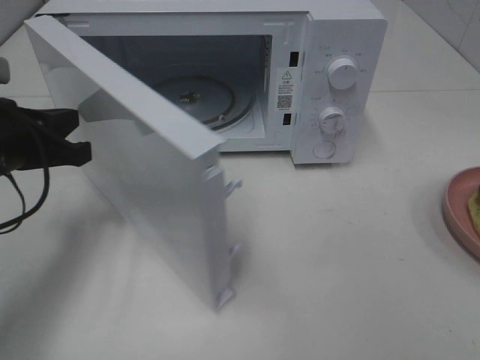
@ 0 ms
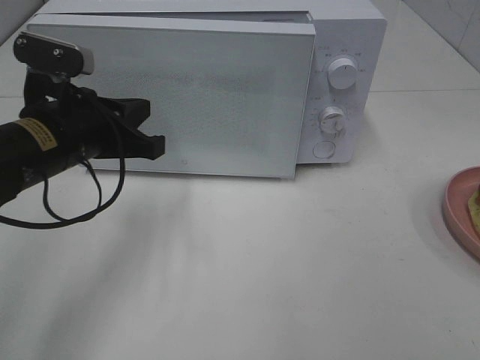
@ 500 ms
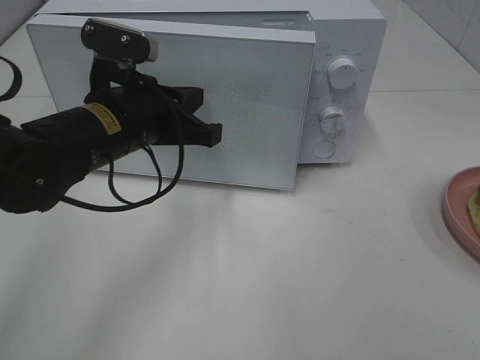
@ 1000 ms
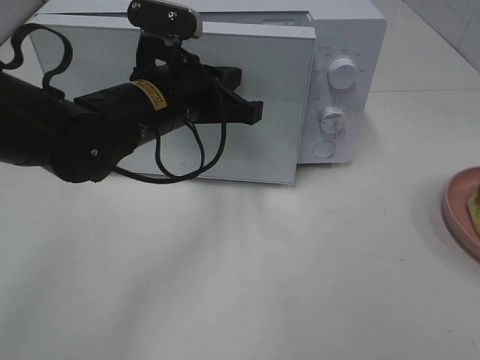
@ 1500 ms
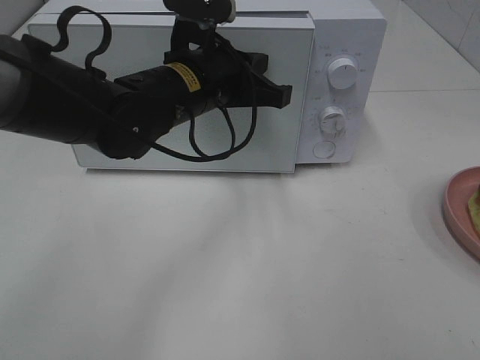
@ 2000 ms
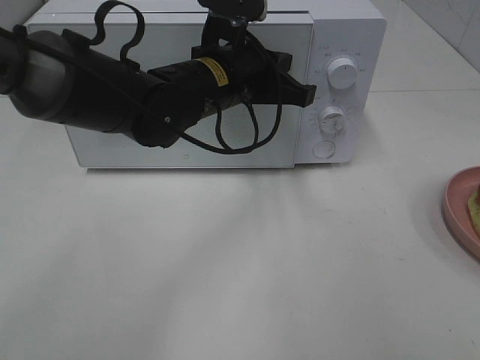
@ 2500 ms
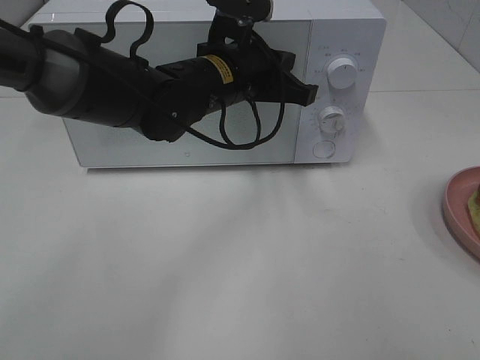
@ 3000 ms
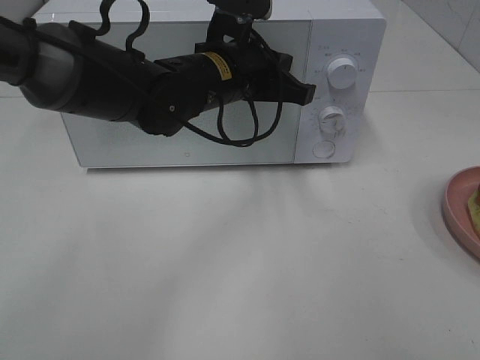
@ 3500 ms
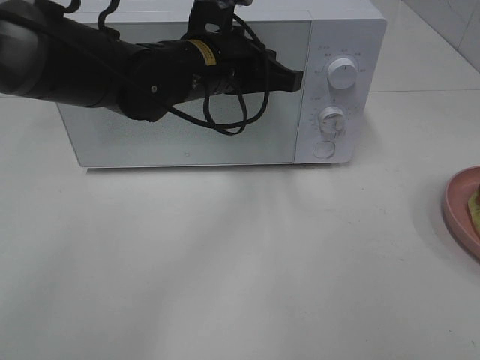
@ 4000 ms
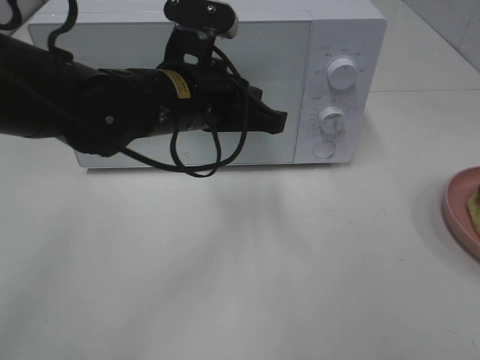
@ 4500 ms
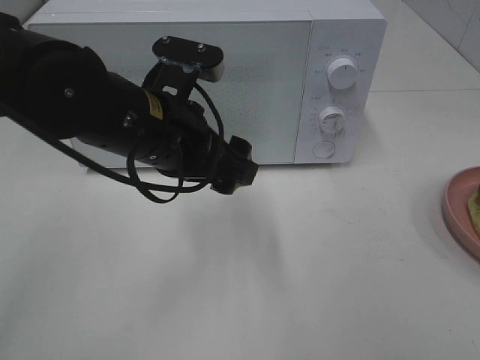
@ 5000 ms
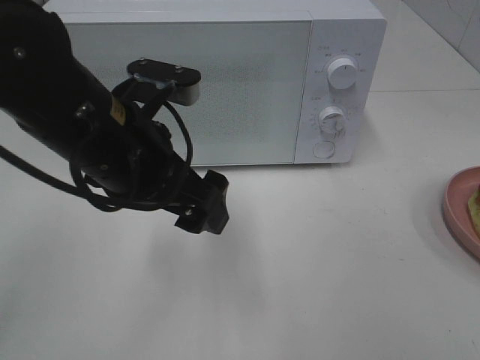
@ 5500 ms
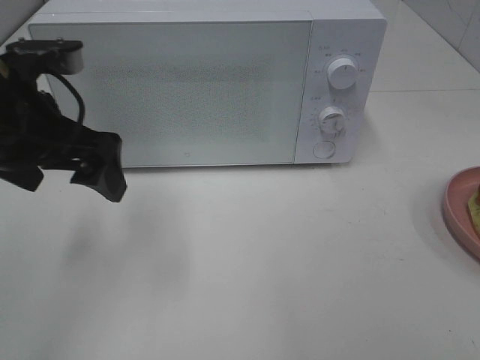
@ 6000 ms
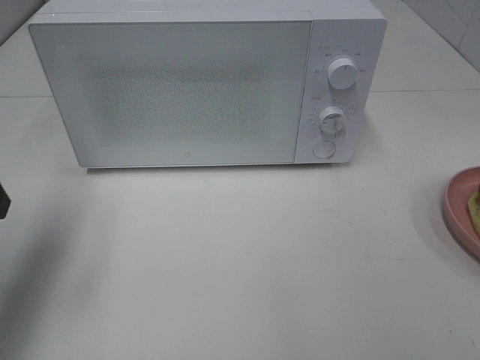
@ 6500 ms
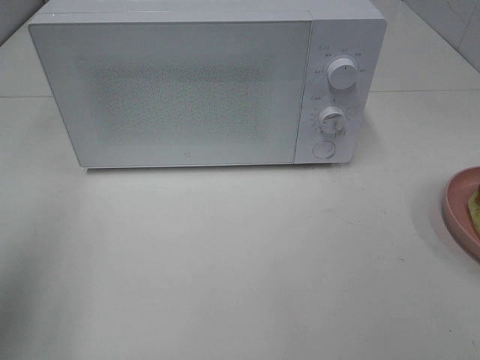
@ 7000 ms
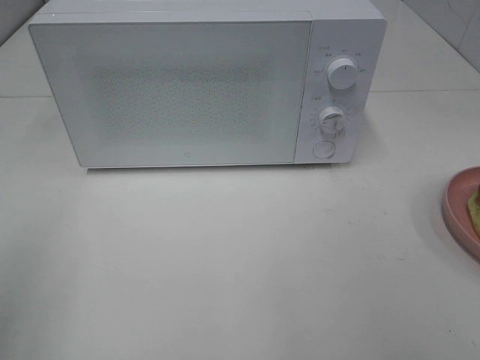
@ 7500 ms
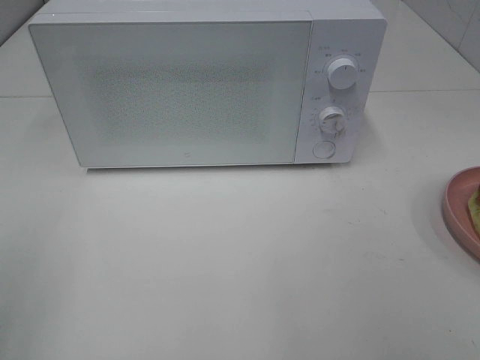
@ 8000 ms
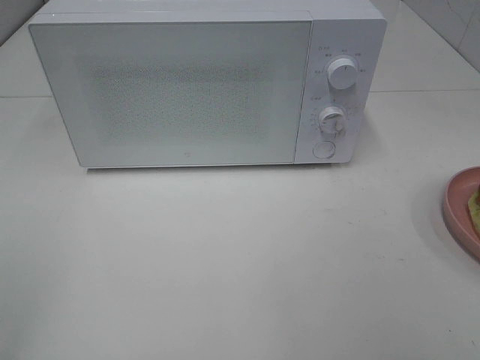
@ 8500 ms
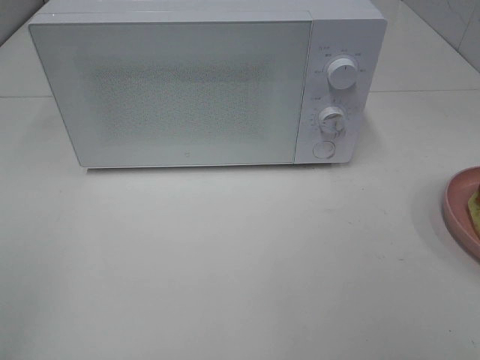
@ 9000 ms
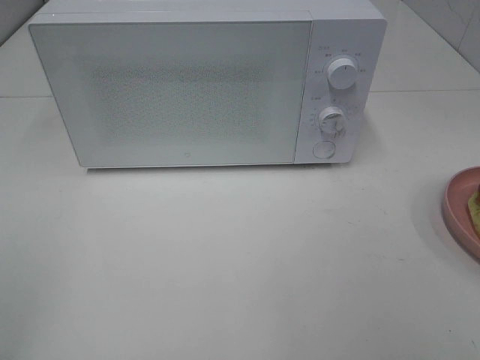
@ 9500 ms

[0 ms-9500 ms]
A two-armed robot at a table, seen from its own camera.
Task of the whole recording: Heat Sandwich.
Step, 0 ms to 3500 ms: Left hand: close the microwave door.
0 ms to 2000 ms: The left gripper moves to the right, some 20 cm.
2000 ms to 4000 ms: There are only small adjustments of the grippers.
4000 ms to 5500 ms: The left gripper travels backward and to the left by approximately 15 cm, and opens.
5500 ms to 7500 ms: The left gripper shifts approximately 30 cm to the left and backward.

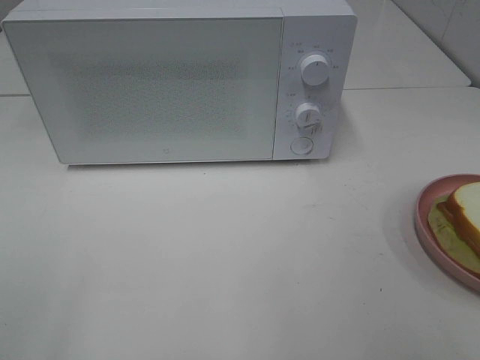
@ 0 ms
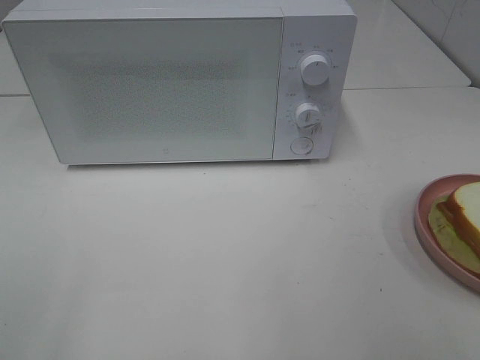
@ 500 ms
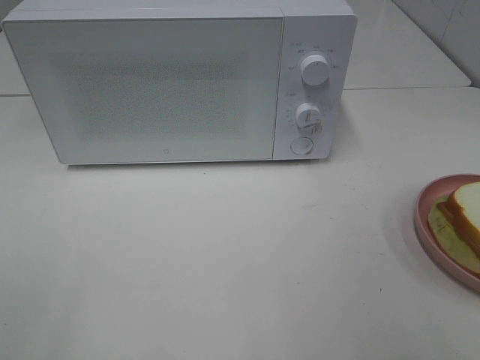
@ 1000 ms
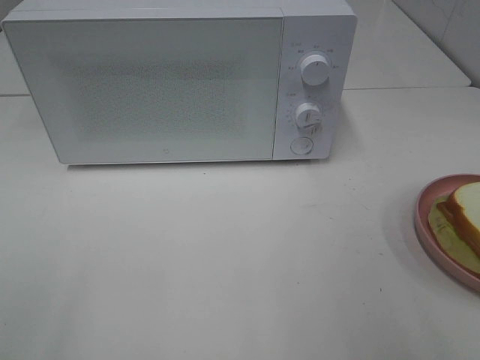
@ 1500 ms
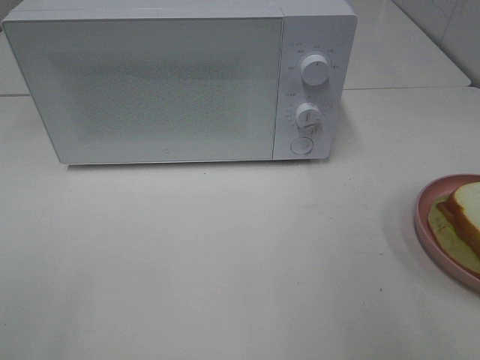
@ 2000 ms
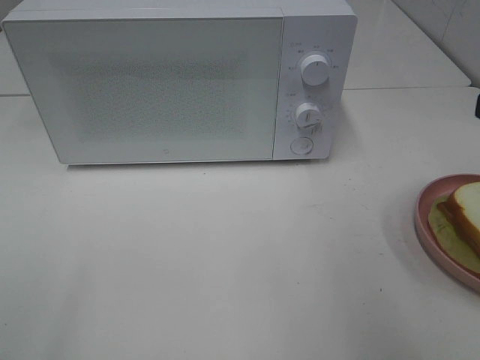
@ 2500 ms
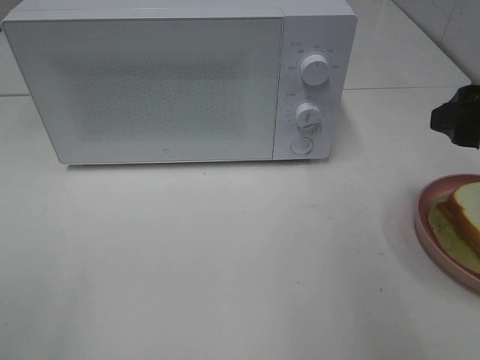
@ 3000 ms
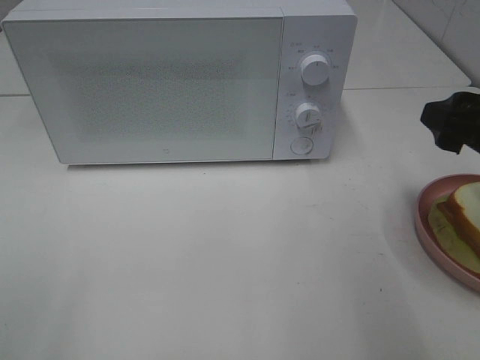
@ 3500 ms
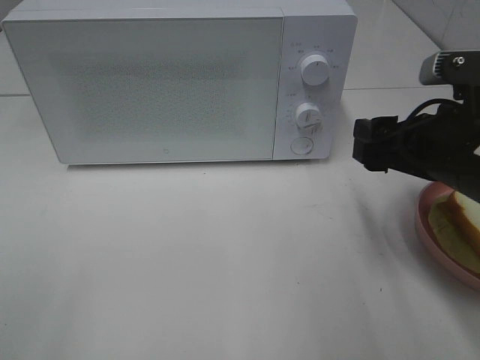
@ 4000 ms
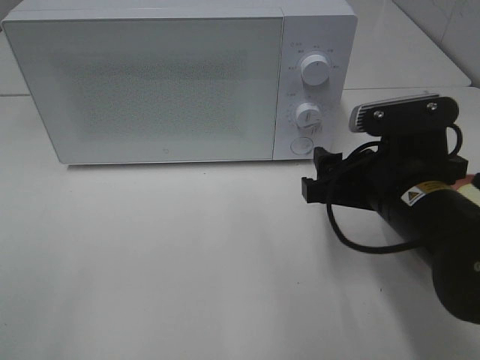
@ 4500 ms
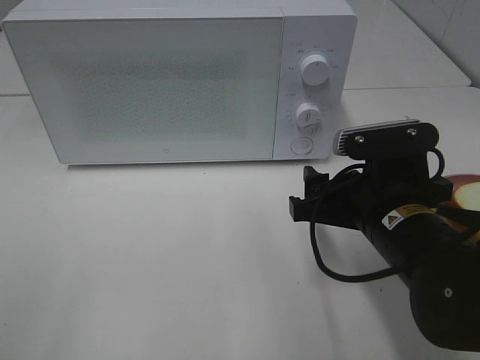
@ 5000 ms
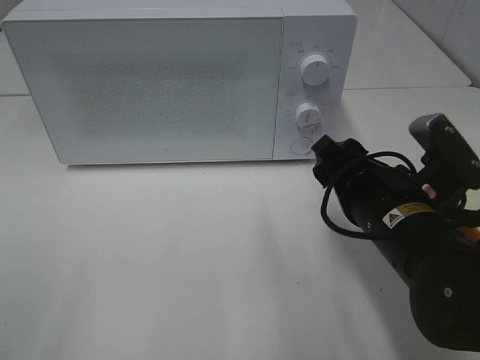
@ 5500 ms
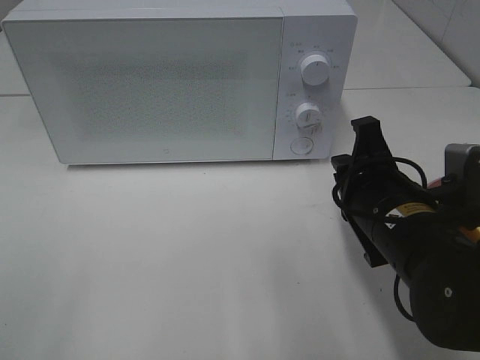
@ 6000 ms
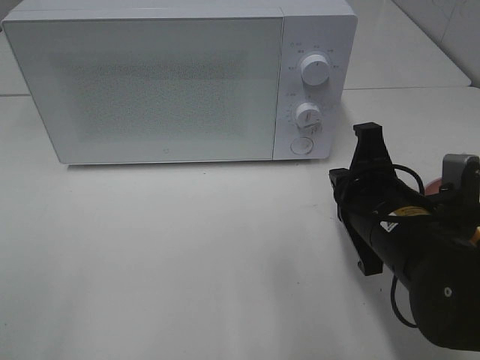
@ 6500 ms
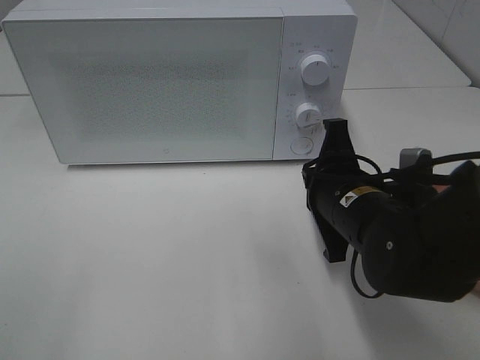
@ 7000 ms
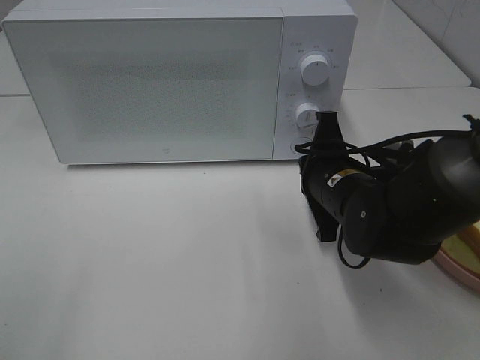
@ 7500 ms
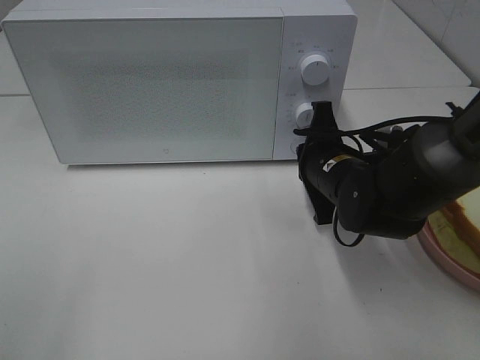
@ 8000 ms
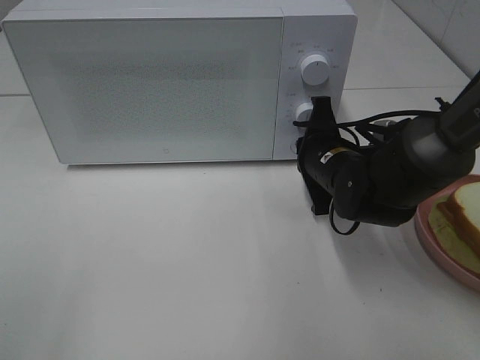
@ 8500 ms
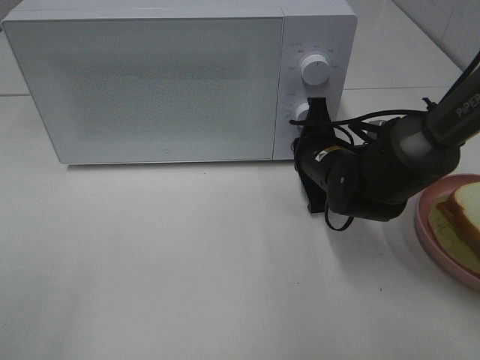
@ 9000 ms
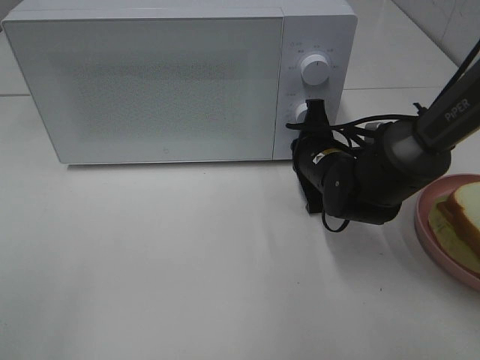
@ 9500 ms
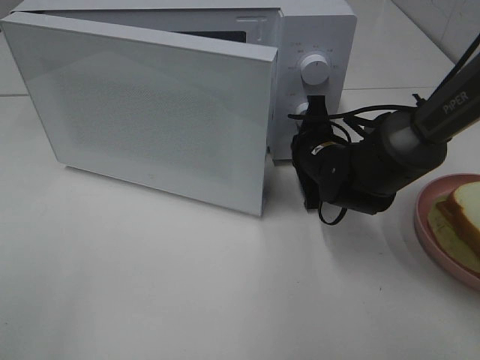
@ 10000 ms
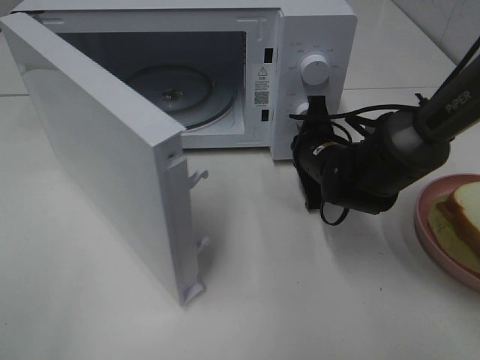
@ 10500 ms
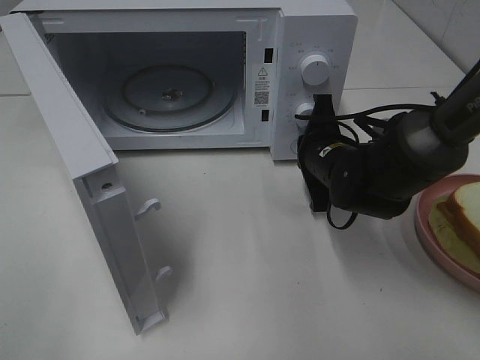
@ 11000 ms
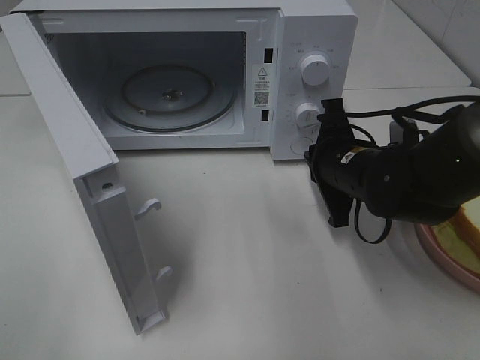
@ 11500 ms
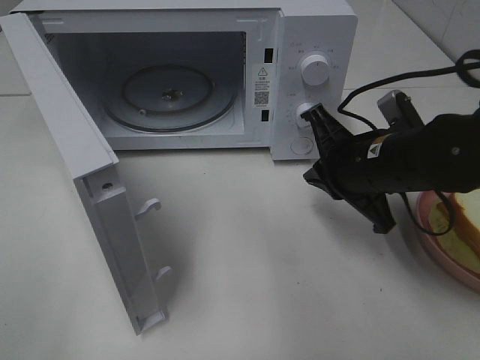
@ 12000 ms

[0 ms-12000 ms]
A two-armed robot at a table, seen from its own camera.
Task of the whole recording: Heat Sandwich.
Step, 0 ms to 11000 ms: Right hand: press the switch.
2000 ms to 4000 ms: The right gripper goes approximately 15 cm downward, forward and to the left.
4000 ms to 6000 ms: The right gripper travels to the left and downward by roughly 10 cm, and closes up.
6000 ms to 8000 ms: The right gripper heads forward, covering roughly 10 cm.
8000 ms to 10000 ms: There are only small adjustments of the grippers.
10000 ms to 12000 ms: The right gripper is displaced backward and upward by some 10 cm.

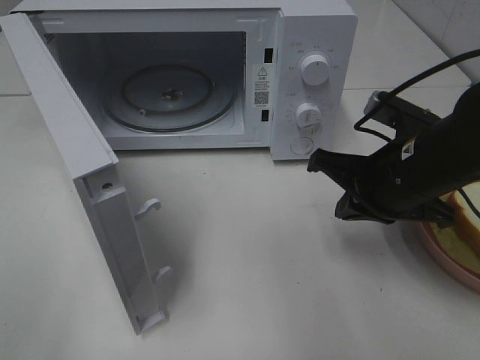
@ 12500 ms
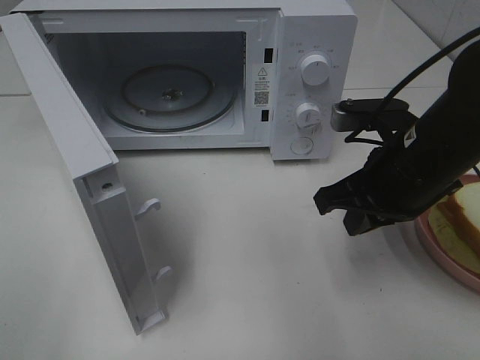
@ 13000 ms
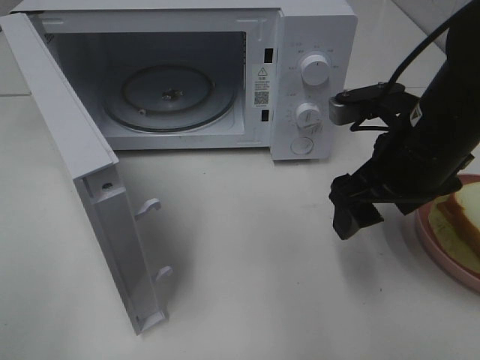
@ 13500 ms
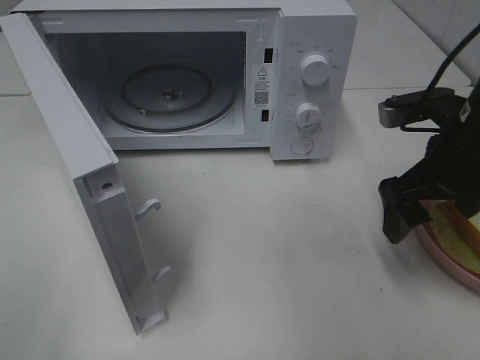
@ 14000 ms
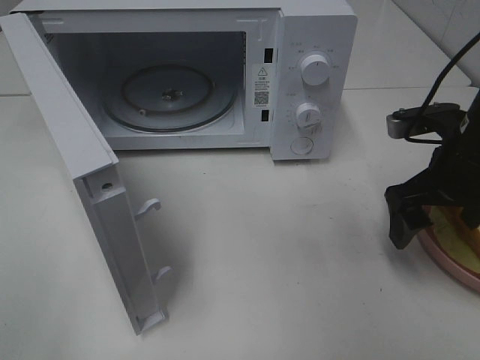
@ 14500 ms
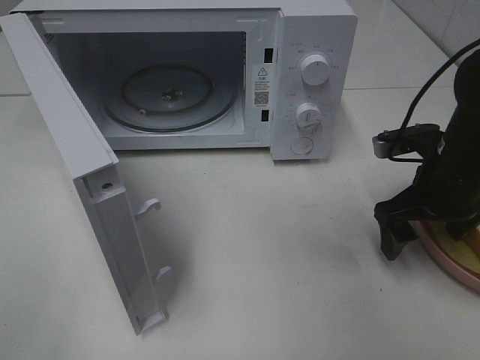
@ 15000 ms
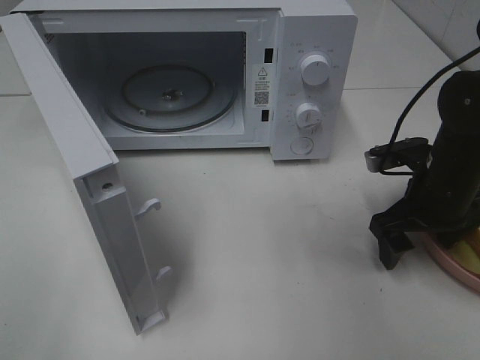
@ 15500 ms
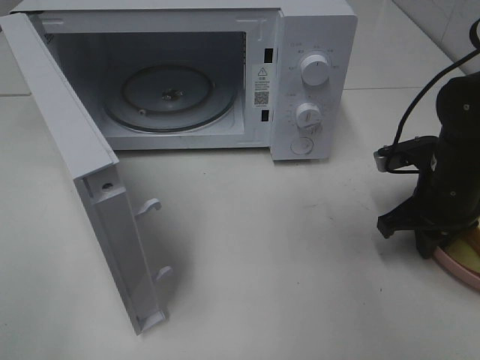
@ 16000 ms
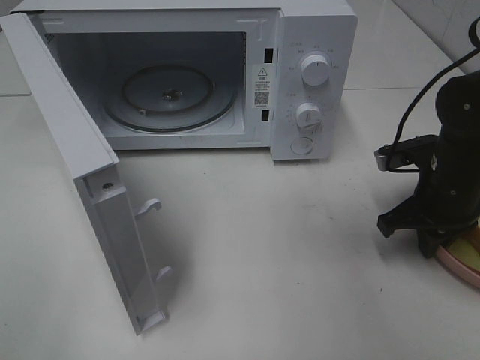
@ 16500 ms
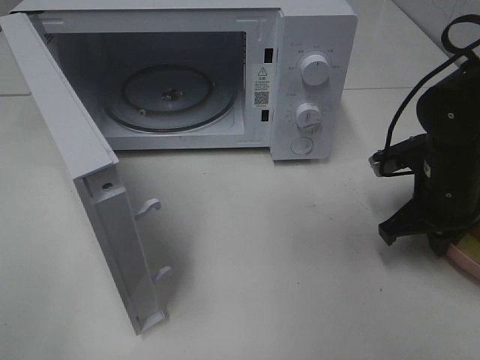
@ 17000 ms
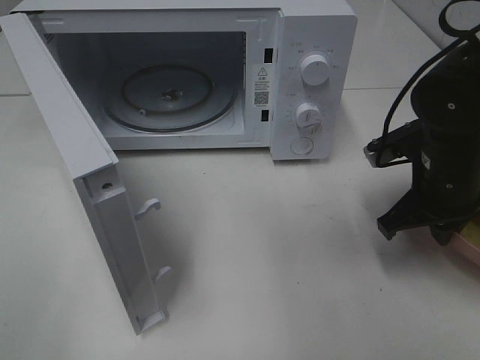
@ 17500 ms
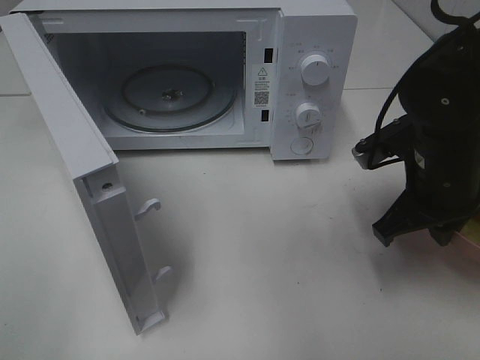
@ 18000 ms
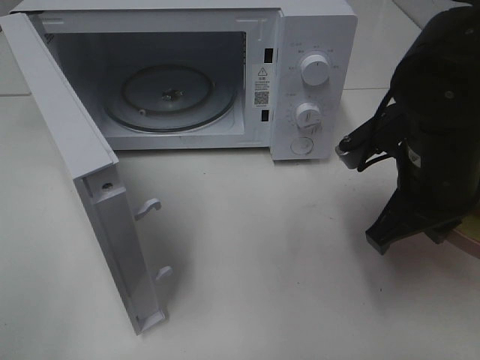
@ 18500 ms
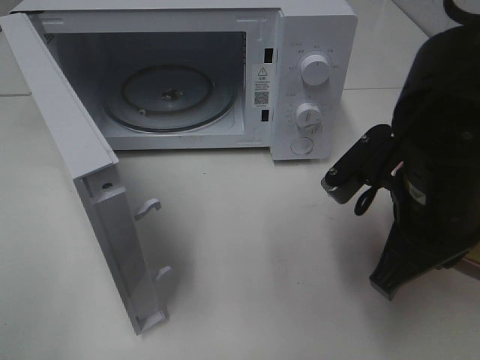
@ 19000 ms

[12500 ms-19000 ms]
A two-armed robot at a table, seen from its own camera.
Task of the whole recording: Heat Sandwich.
Step, 12500 ms to 16500 ms: Right hand: grab the plate with the sandwich.
12500 ms to 14500 ms: The right gripper heads to the right, covering approximately 5 cm, and opens.
14500 ms to 17000 ms: The right gripper travels downward by approximately 5 cm, and closes its fingers.
17000 ms to 19000 ms: The right gripper heads backward, to the left and upward, covering about 15 cm.
